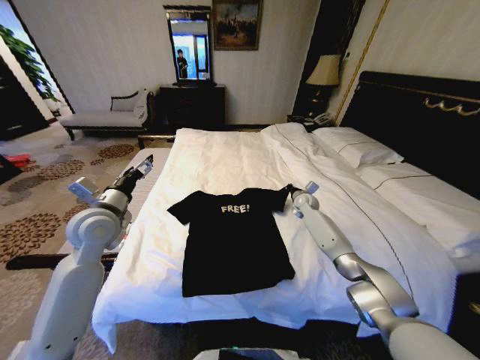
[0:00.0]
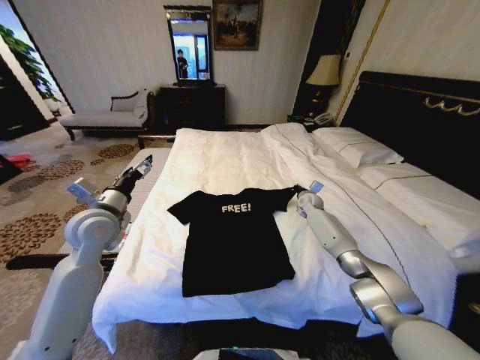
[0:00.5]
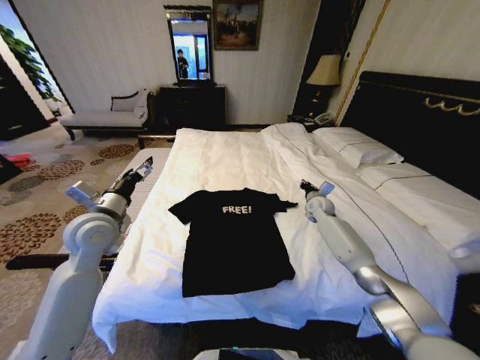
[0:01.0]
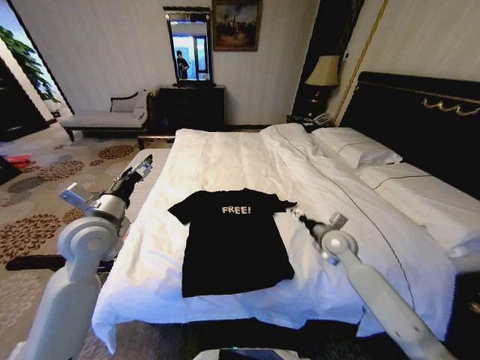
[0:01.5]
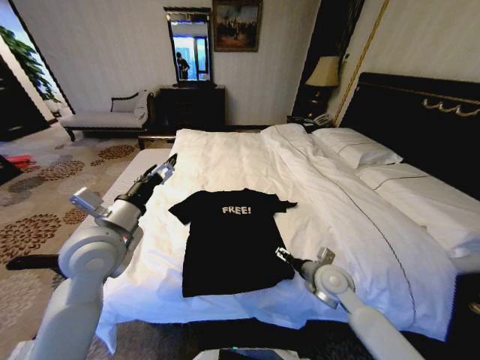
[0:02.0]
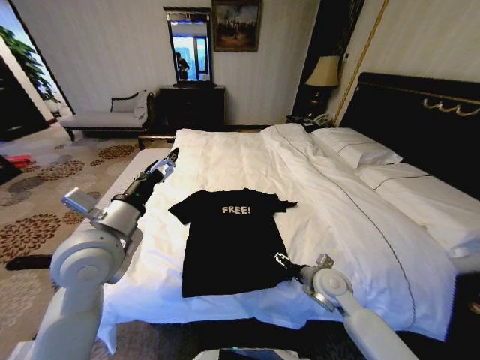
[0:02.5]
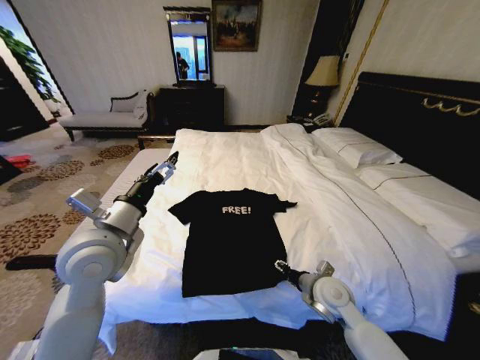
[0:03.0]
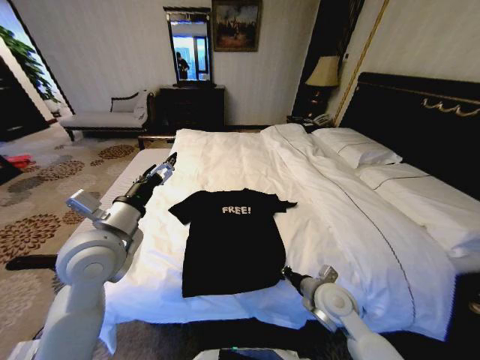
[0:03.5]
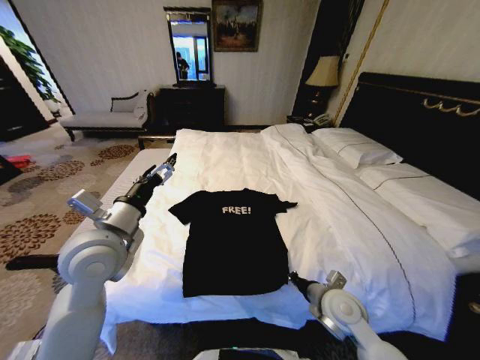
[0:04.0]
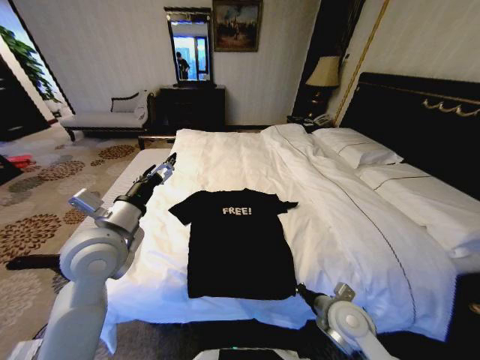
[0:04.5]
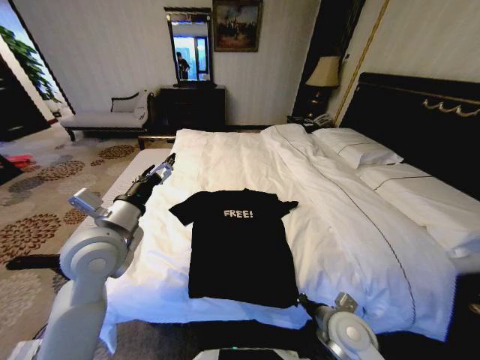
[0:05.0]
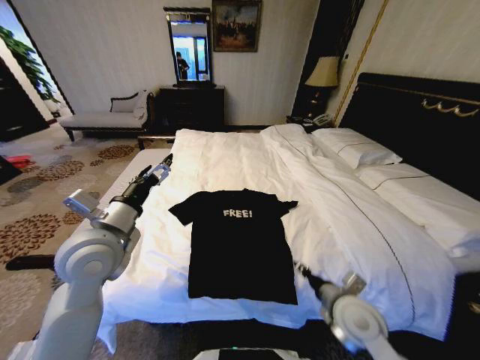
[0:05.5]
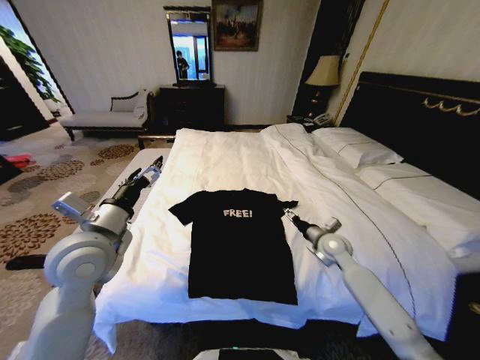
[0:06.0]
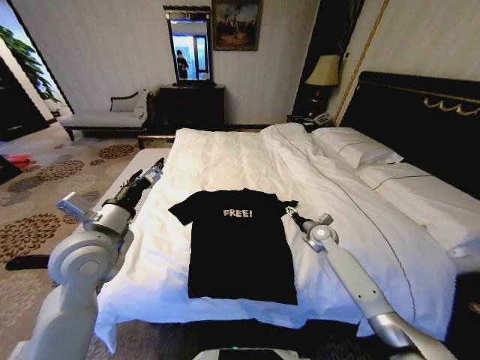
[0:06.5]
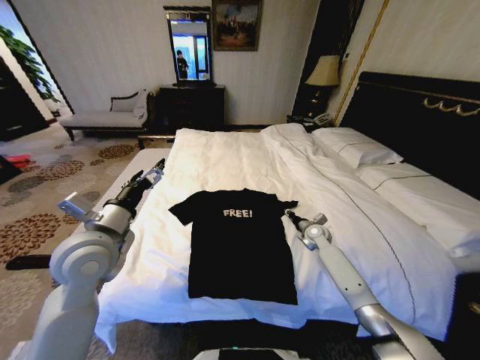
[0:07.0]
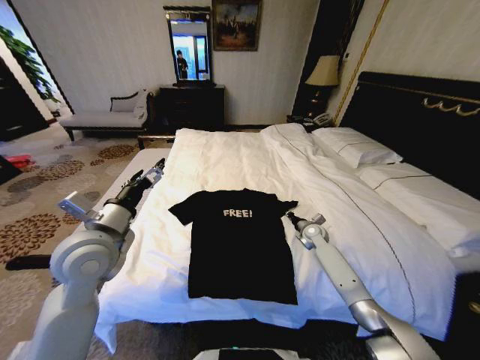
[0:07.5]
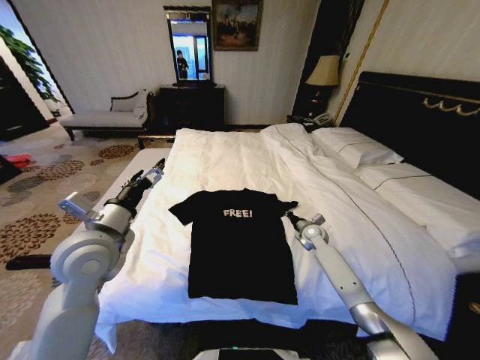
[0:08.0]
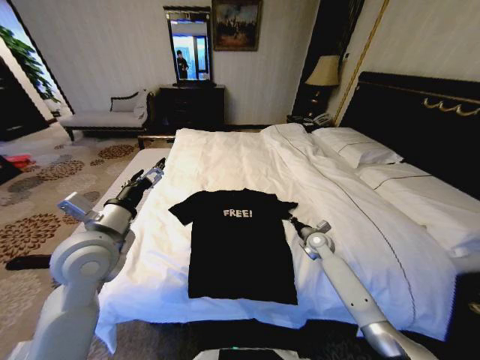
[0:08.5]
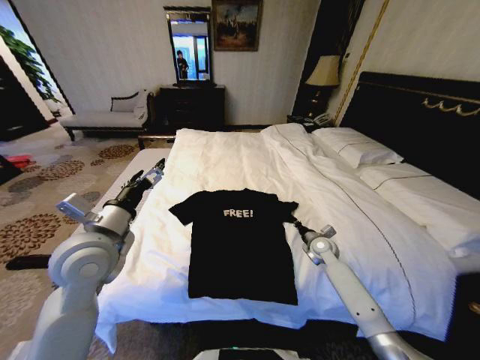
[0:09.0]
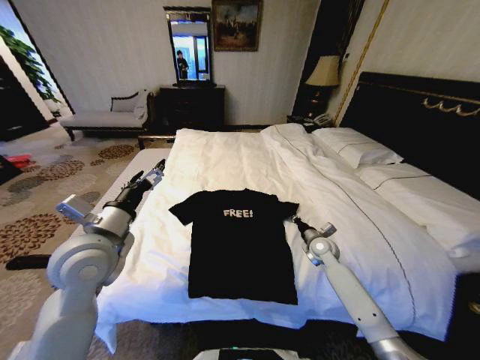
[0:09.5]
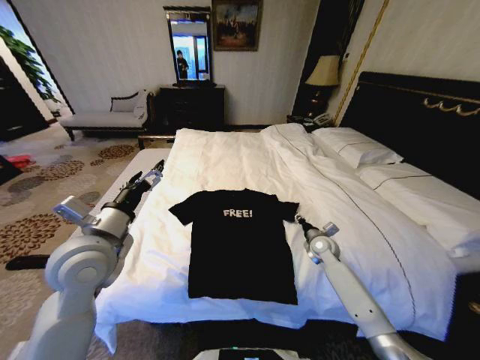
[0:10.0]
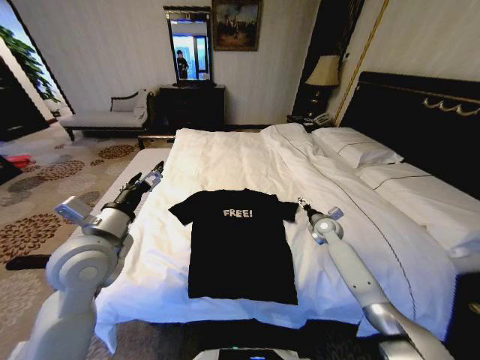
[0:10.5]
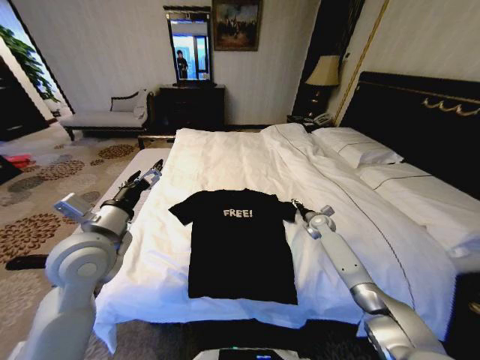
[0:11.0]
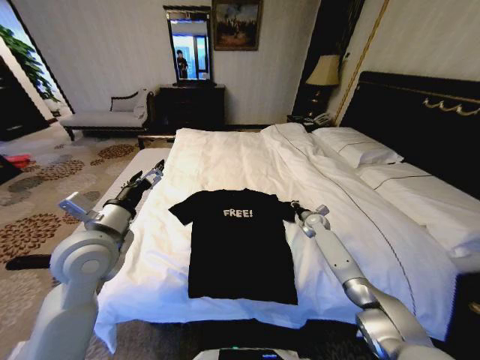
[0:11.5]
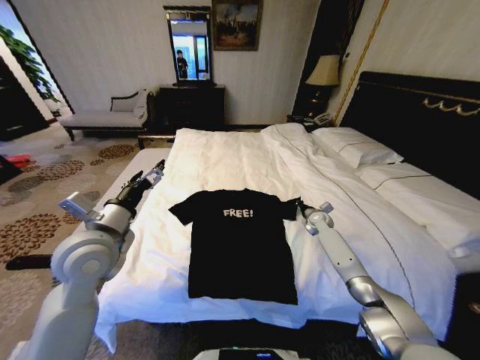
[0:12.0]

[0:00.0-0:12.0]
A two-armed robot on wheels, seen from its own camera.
Task of the whole recording: Fold the clothes on the bed.
0:00.0 to 0:02.0: The right gripper travels backward by some 30 cm, and opens its fingers. The left gripper is displaced backward and to the right by approximately 10 cm.
0:02.0 to 0:04.0: The right gripper is displaced backward by about 5 cm, and closes up.
0:04.0 to 0:06.0: The right gripper is displaced forward by some 15 cm, and opens.
0:06.0 to 0:08.0: The right gripper is displaced forward and downward by some 15 cm, and closes its fingers.
0:08.0 to 0:10.0: The right gripper moves backward, about 5 cm, and opens its fingers.
0:10.0 to 0:12.0: The right gripper shifts about 10 cm forward, and closes up.

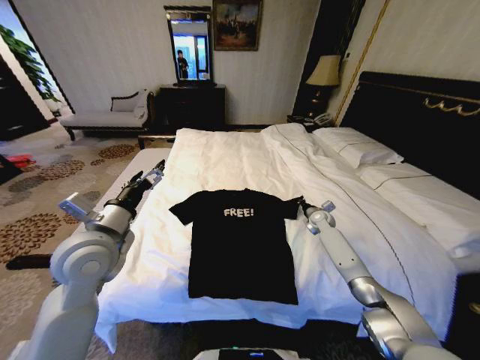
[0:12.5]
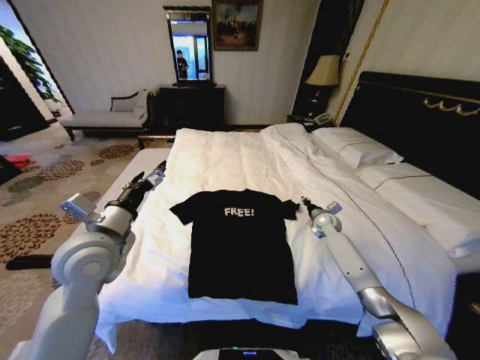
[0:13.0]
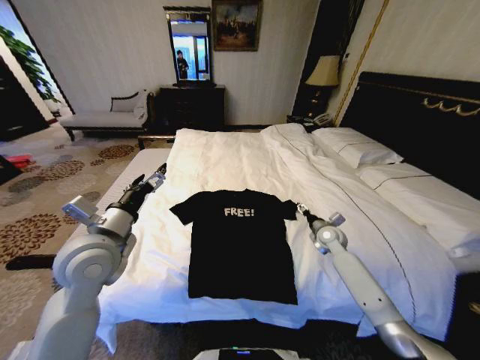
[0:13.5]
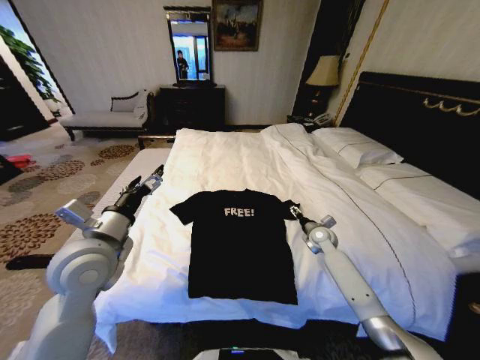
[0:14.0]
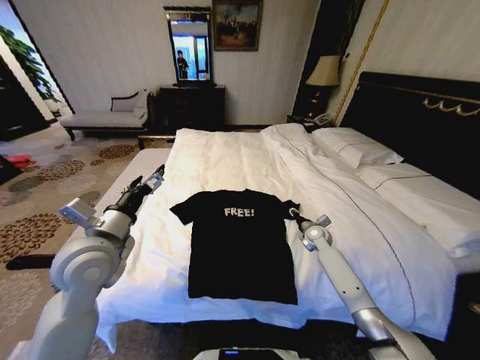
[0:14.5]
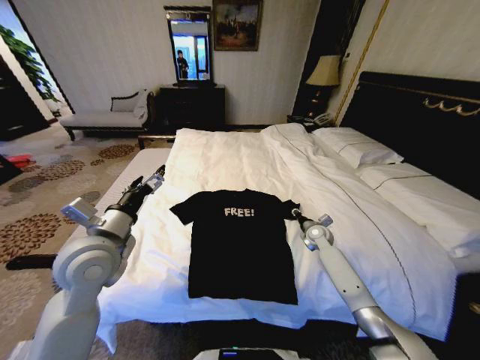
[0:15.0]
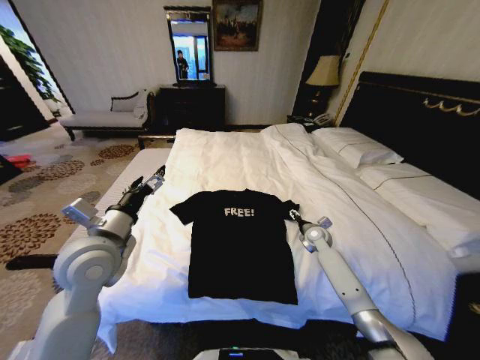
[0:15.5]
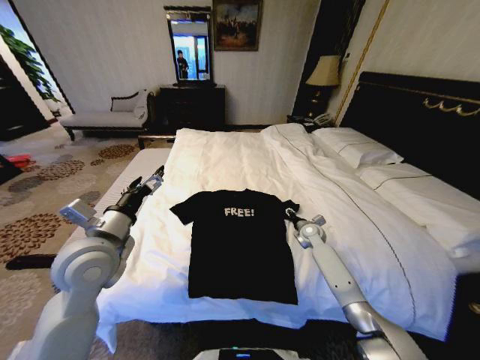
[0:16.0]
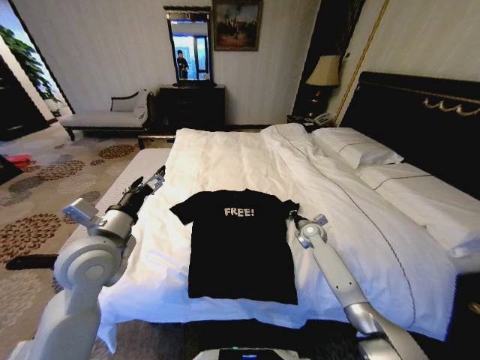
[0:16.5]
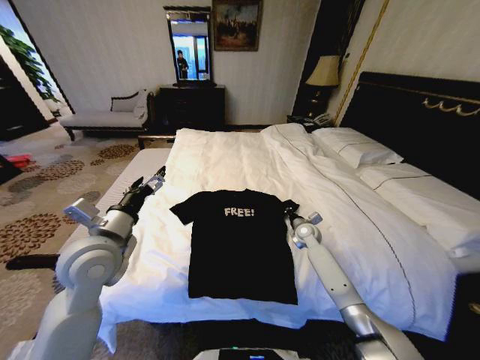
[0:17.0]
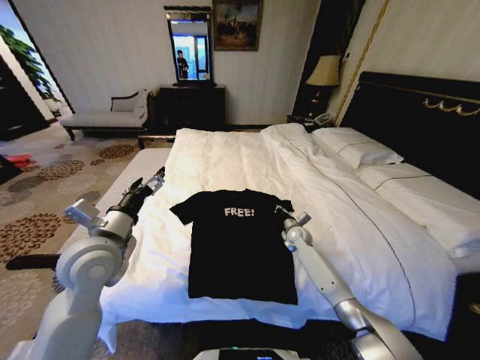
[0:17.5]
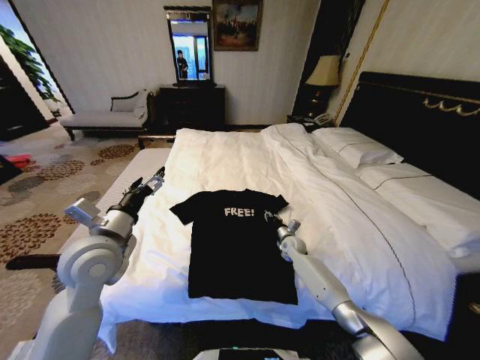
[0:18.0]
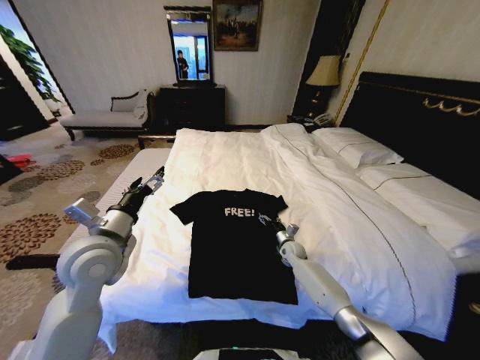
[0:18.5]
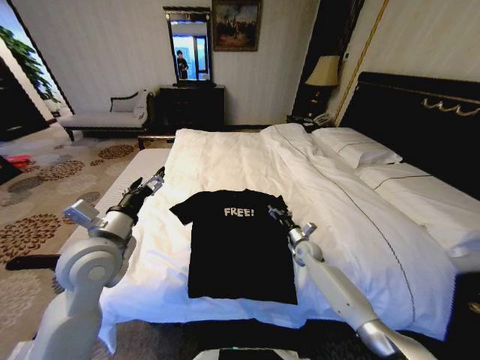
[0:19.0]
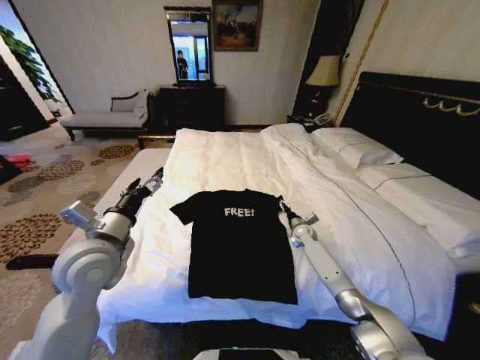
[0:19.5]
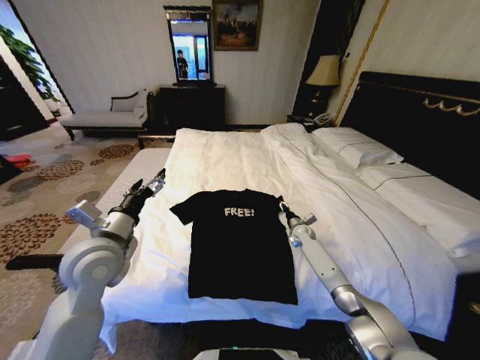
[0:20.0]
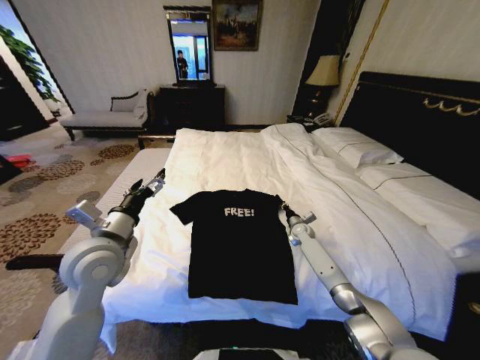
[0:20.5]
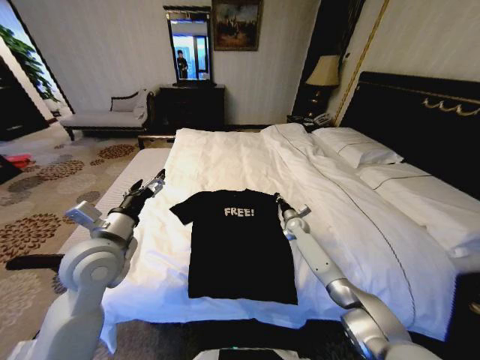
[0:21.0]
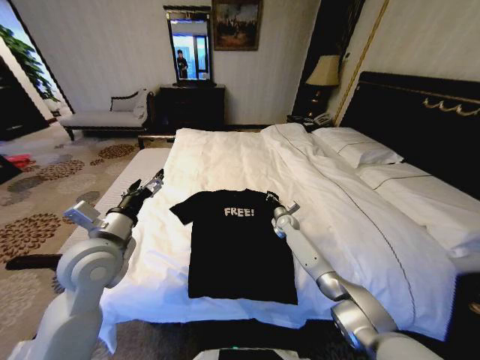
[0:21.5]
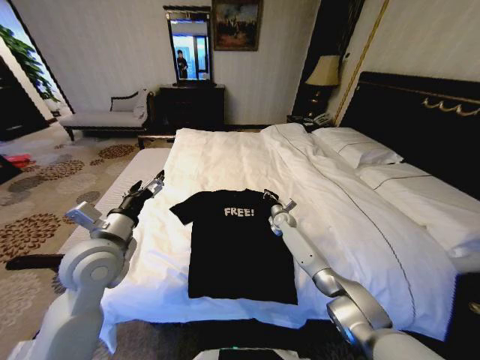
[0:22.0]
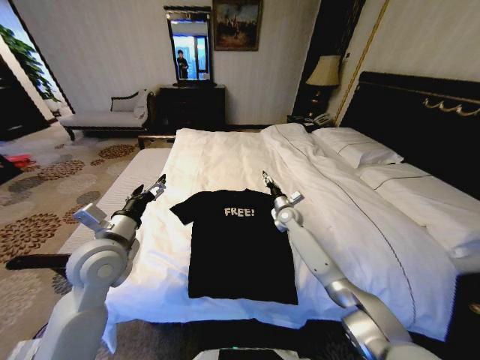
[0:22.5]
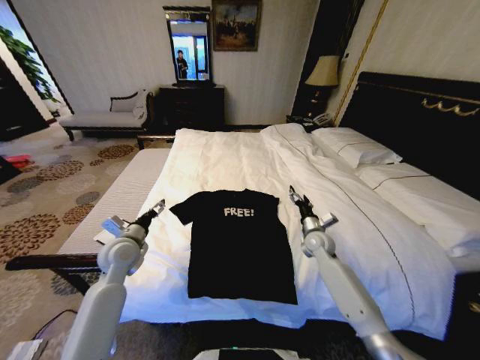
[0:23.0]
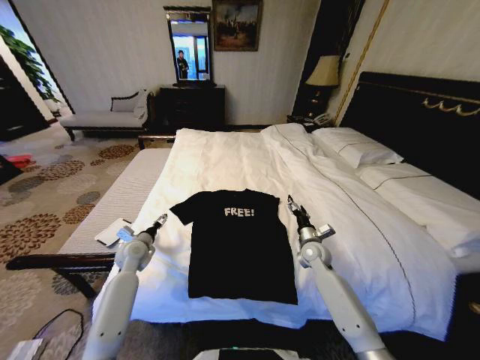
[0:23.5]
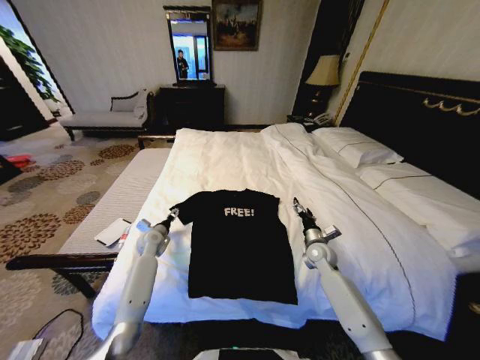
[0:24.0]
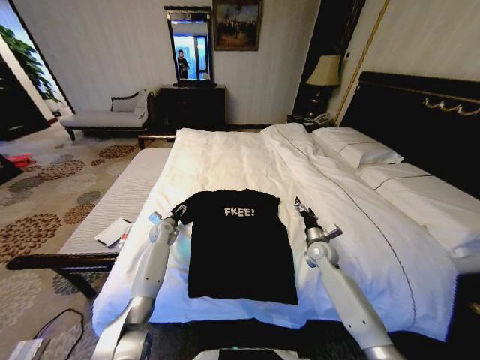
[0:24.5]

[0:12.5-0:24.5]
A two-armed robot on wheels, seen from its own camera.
Task of the whole recording: Fold the clothes on the bed.
0:12.5 to 0:14.5: The right gripper is displaced backward by some 5 cm, and opens its fingers.
0:14.5 to 0:16.5: The right gripper closes.
0:16.5 to 0:18.5: The right gripper goes some 10 cm downward and to the left, and opens.
0:18.5 to 0:20.5: The right gripper moves forward and to the right, roughly 10 cm, and closes up.
0:20.5 to 0:22.5: The right gripper is displaced upward and to the left by approximately 10 cm, and opens its fingers.
0:22.5 to 0:24.5: The left gripper shifts about 35 cm forward and downward; the right gripper goes some 15 cm backward, to the right and downward, and opens up.

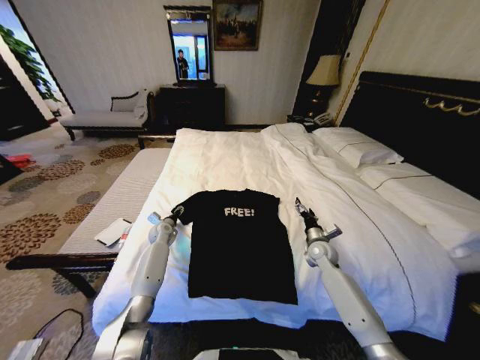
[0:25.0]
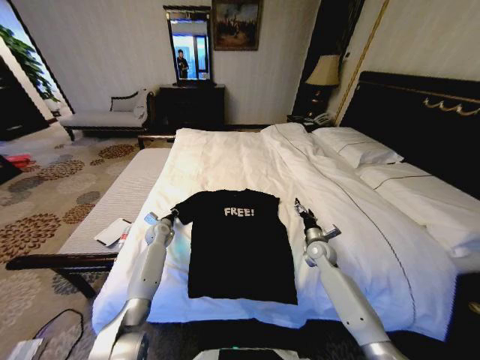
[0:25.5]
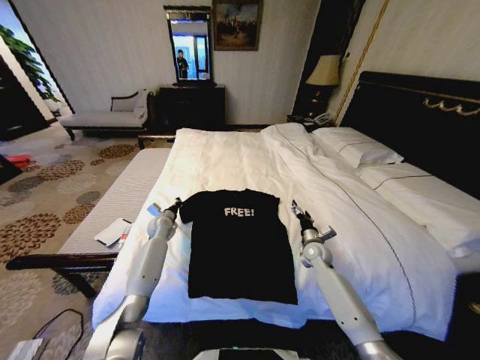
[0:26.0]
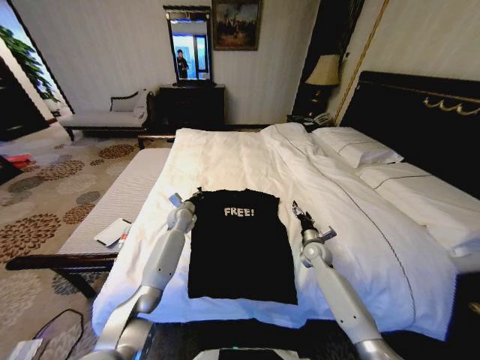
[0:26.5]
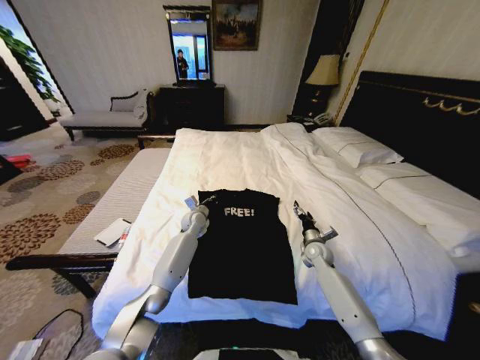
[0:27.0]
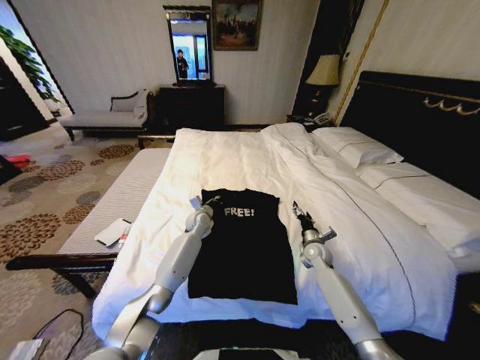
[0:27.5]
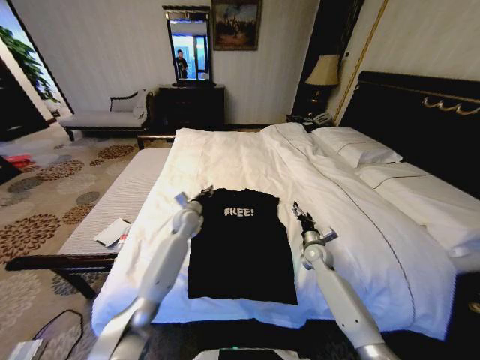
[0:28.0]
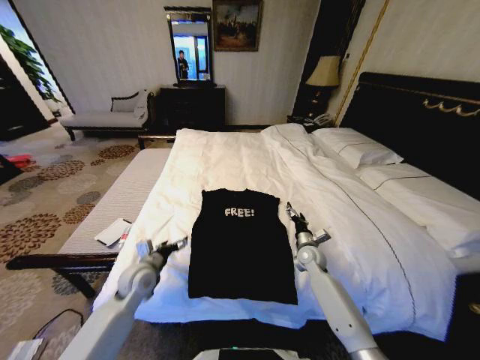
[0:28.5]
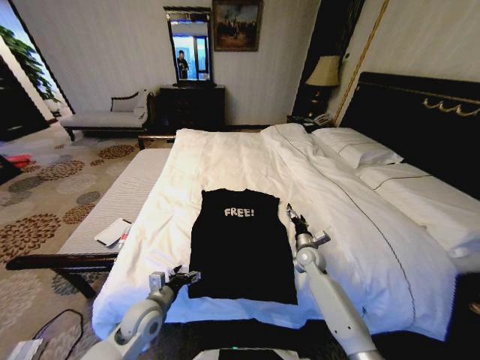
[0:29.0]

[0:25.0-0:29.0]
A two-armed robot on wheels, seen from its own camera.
Task of the whole recording: Fold the clothes on the bed.
0:25.0 to 0:27.0: The left gripper travels to the right and upward by some 15 cm, and closes.
0:27.0 to 0:29.0: The left gripper is displaced backward by about 30 cm, and opens.
